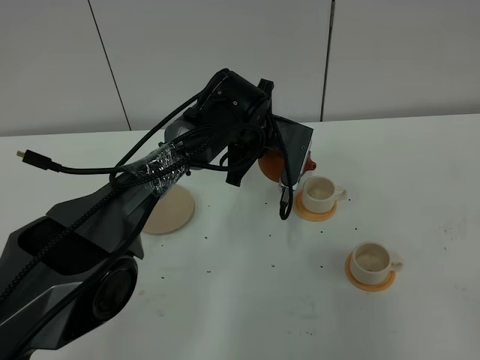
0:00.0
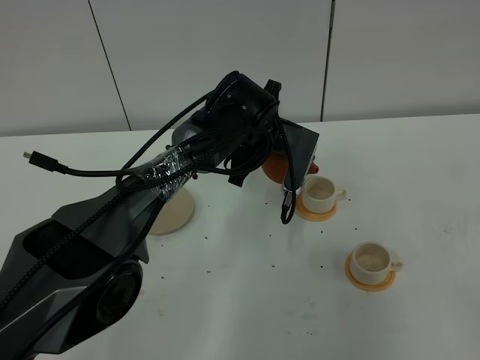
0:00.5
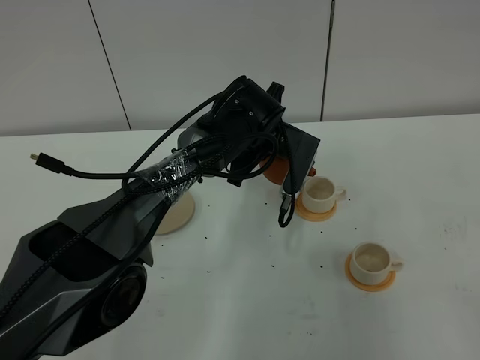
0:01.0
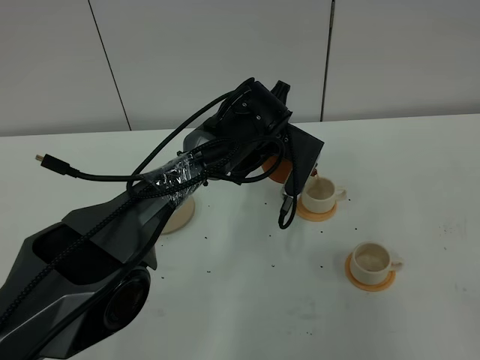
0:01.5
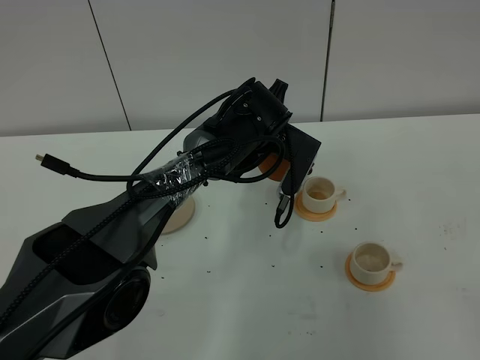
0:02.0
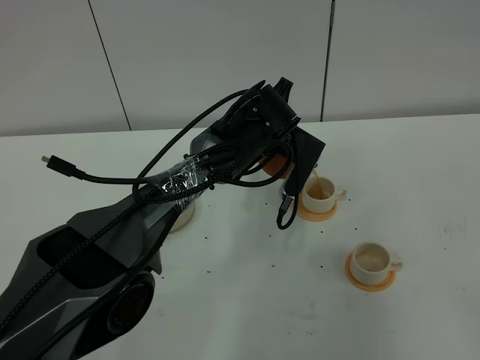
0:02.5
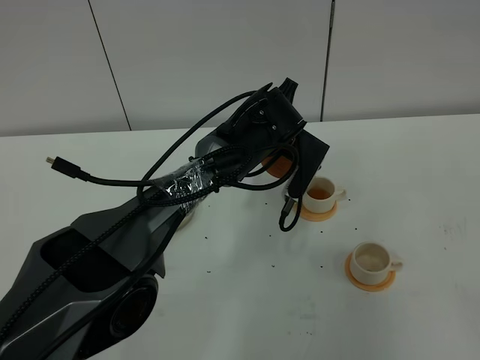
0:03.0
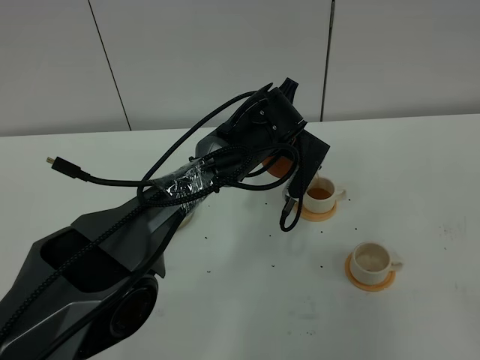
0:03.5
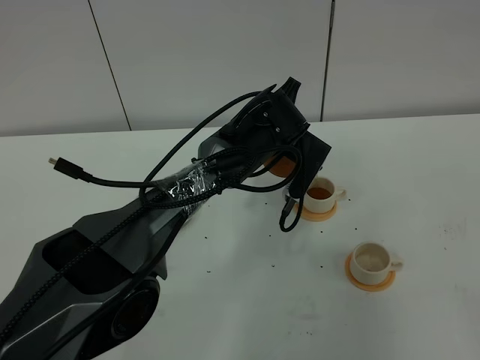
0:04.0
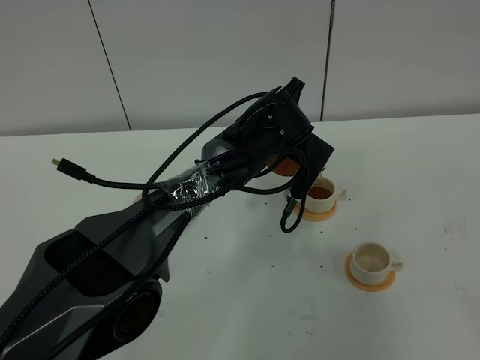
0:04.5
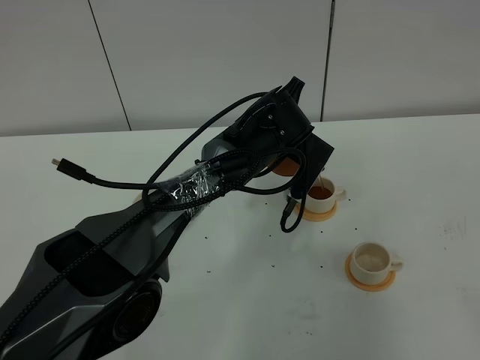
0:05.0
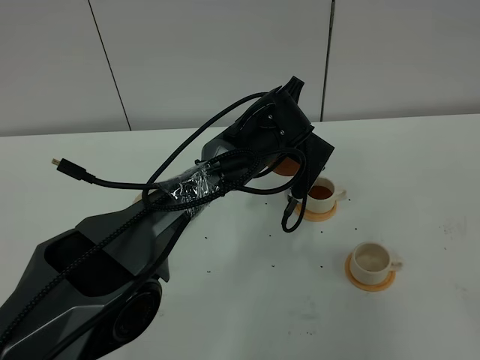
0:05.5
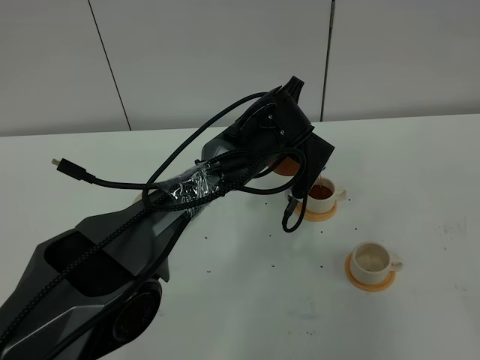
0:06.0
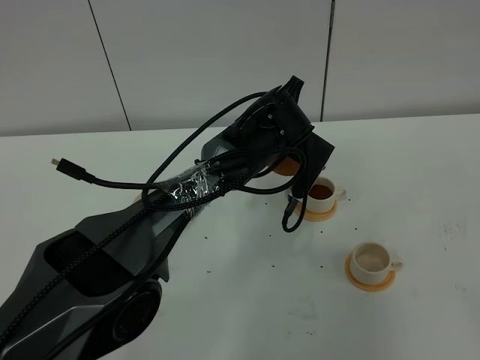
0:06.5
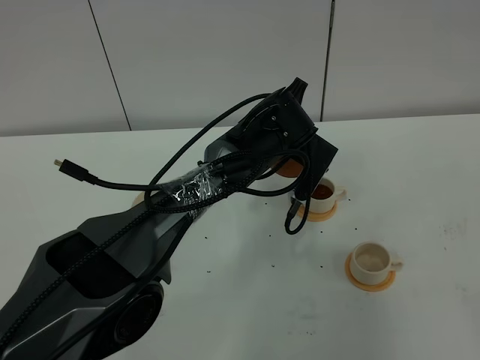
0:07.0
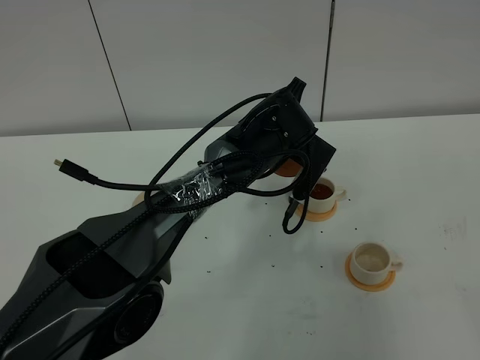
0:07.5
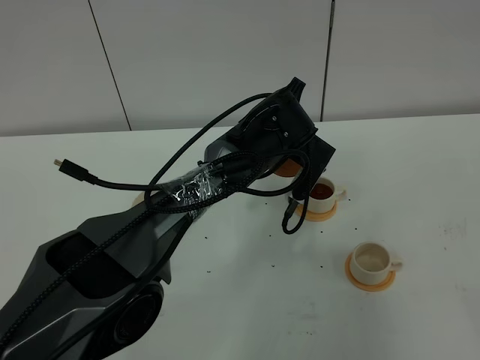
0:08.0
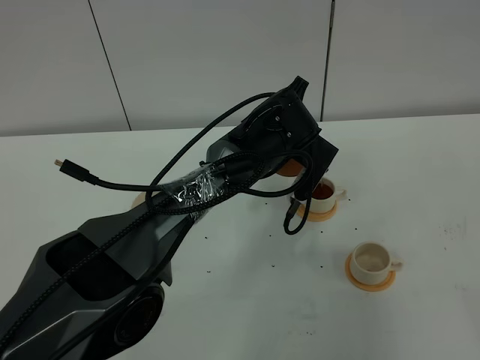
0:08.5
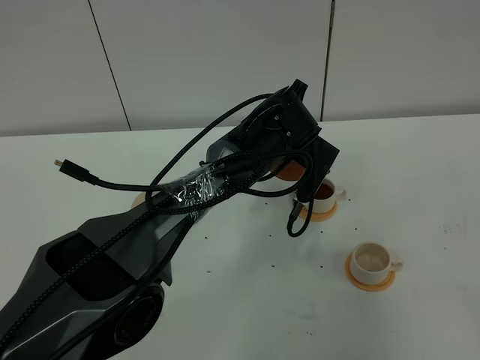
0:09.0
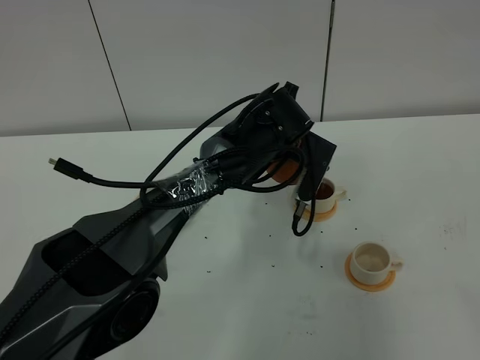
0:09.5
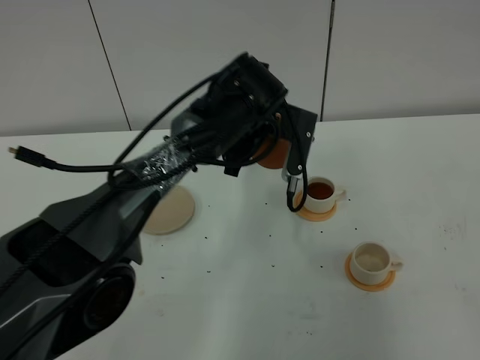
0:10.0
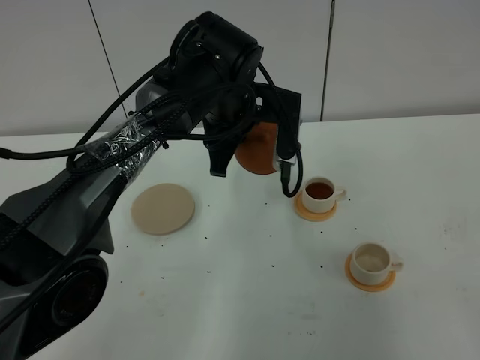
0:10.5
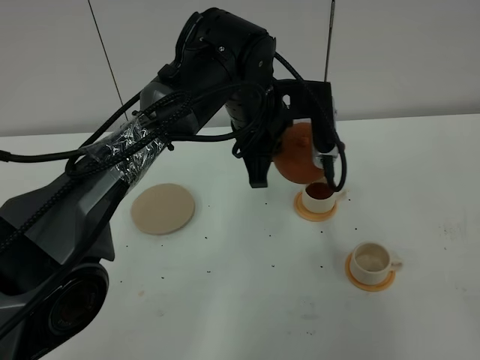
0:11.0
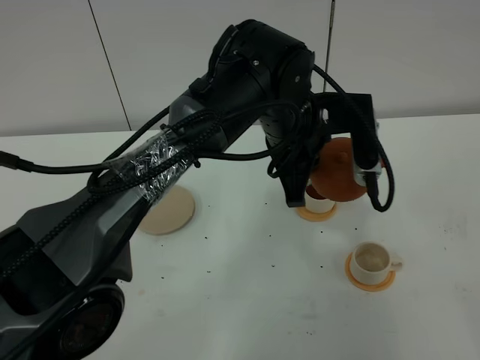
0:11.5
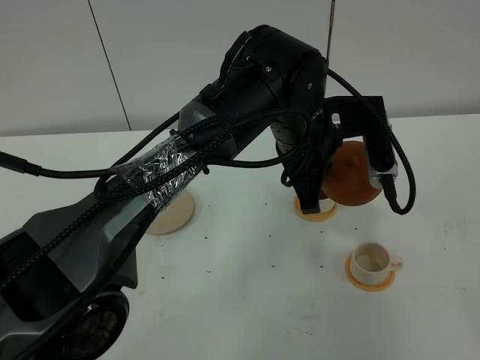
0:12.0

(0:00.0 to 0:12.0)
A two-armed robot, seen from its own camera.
Task of the whole recording: grasp the brown teapot and pour the tea into the two white teacups one by one, put the brown teapot back in its original place.
0:00.0 - 0:04.0: The grippers move only a little.
0:04.0 - 0:08.0: The two grippers keep their place.
0:08.0 - 0:10.0: The left gripper ends up about 5 cm from where it was.
0:10.0 - 0:12.0: The left gripper is displaced backward and to the right by roughly 10 cm.

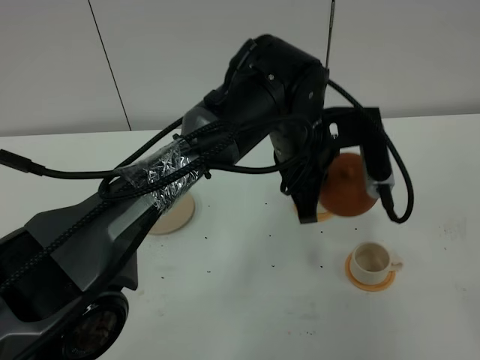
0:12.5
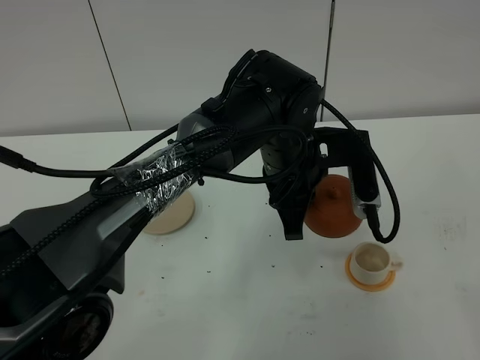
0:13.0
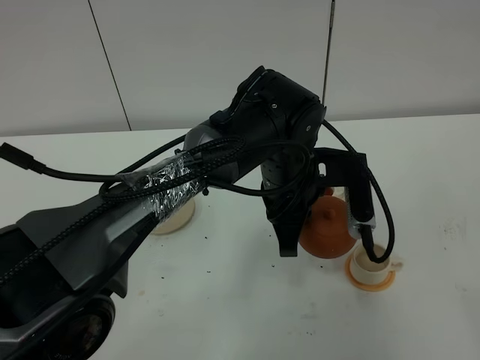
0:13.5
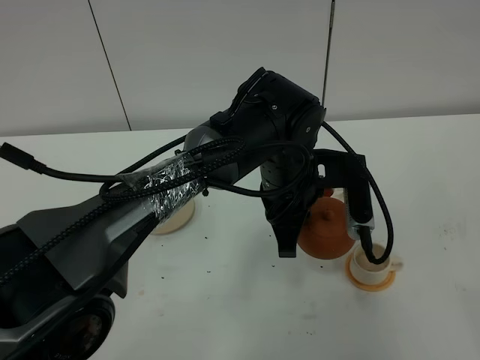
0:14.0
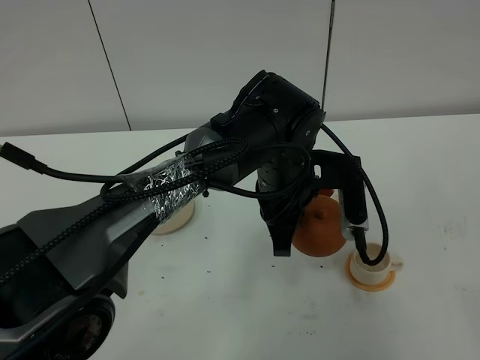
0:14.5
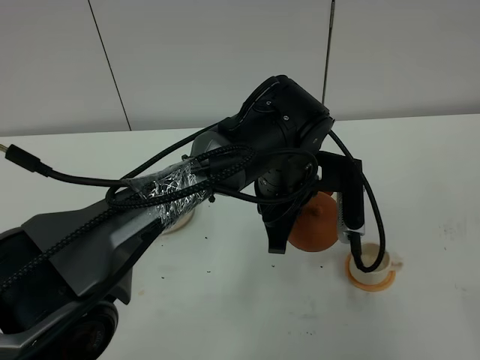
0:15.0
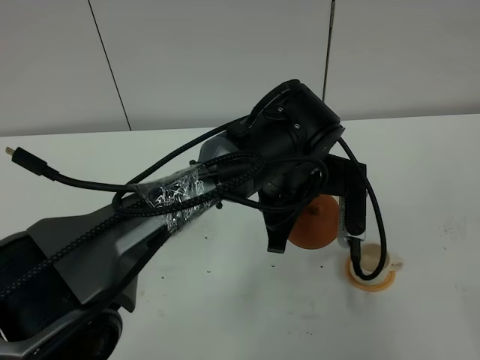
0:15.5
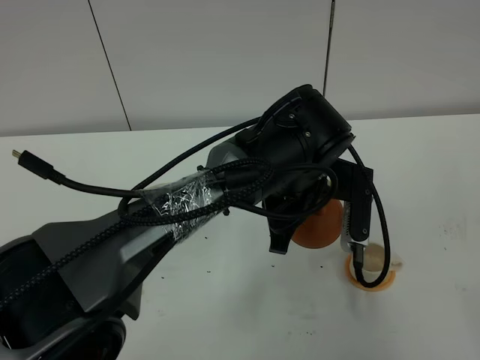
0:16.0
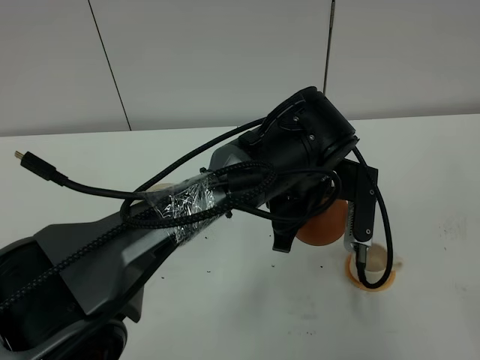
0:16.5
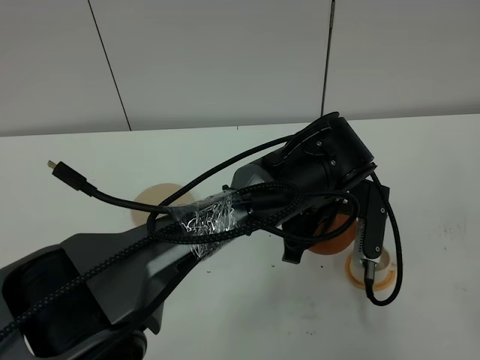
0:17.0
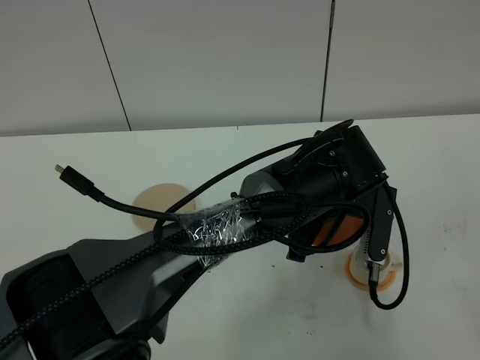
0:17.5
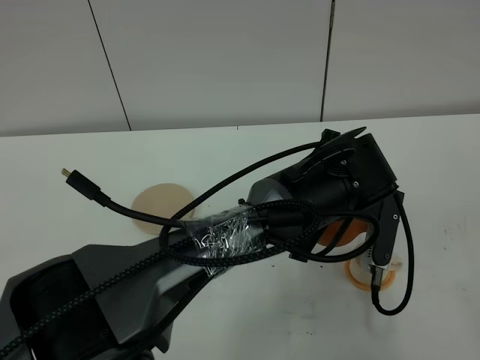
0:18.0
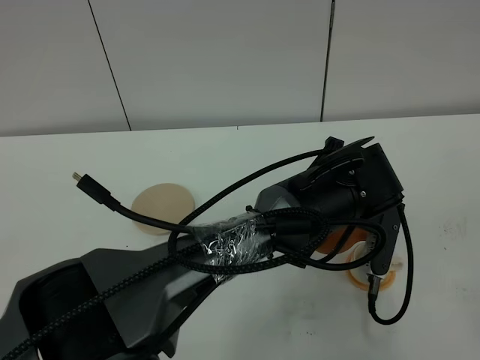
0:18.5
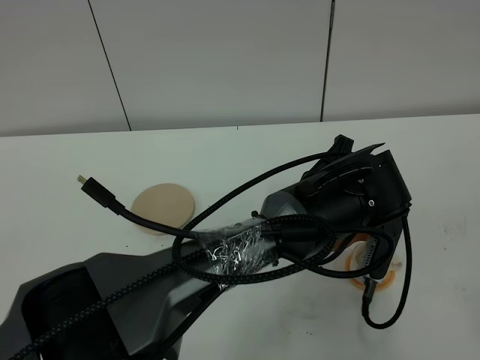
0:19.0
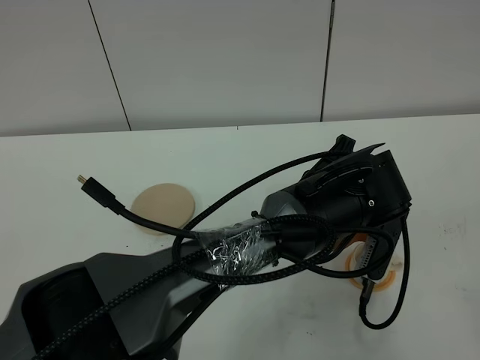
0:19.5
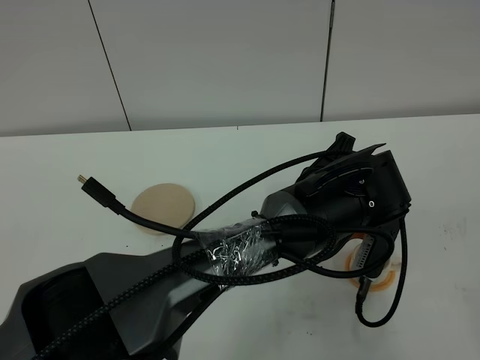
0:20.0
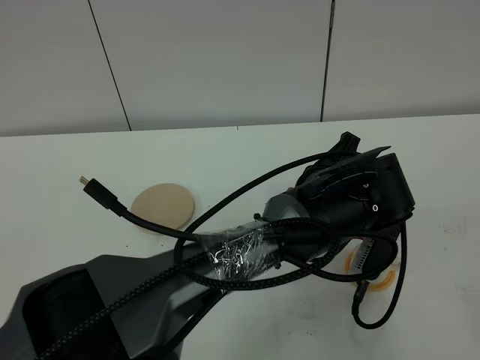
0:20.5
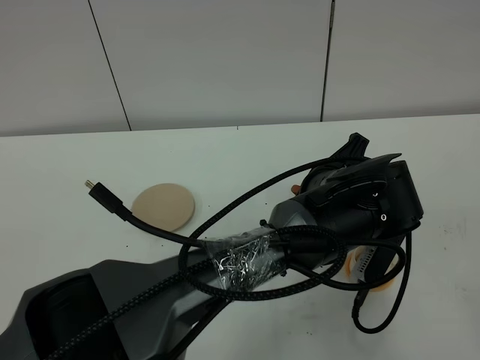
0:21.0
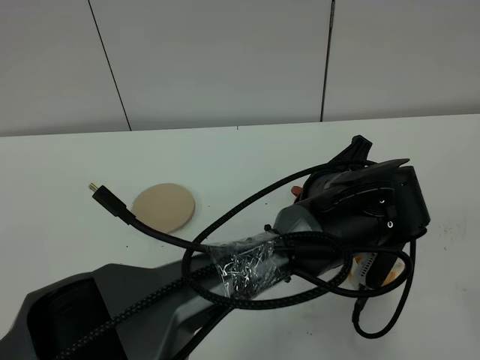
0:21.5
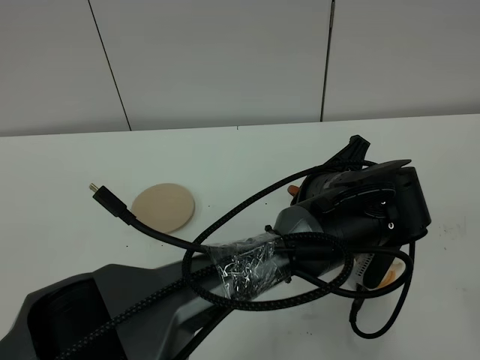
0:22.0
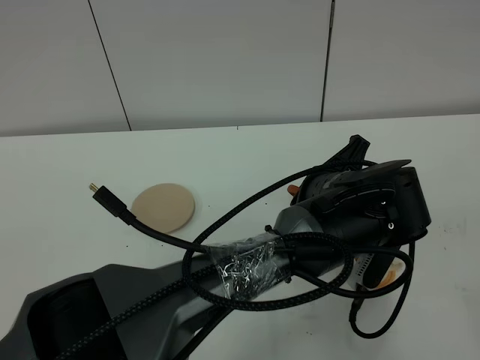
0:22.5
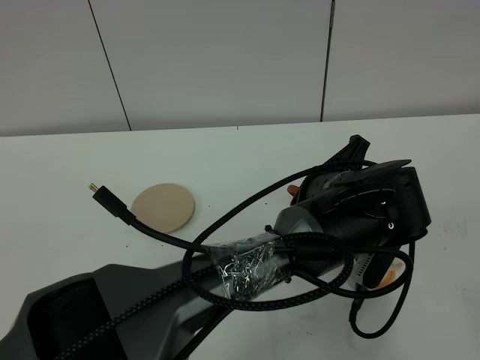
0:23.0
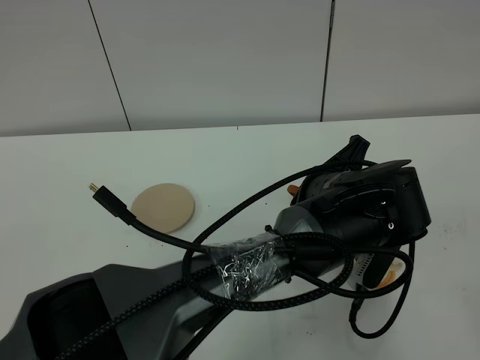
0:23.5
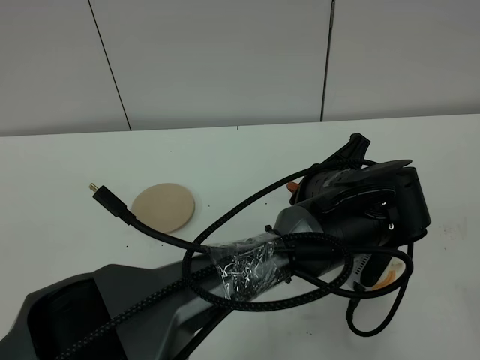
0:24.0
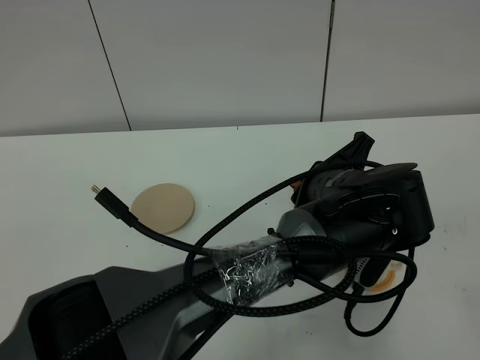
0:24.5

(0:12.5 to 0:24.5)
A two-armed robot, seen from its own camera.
Task of the whole recording: grasp the brown teapot and pour the tea into the two white teacups one by one, put the brown teapot back in its original place.
0:12.5 - 0:14.5: There are only small adjustments of the grippers.
0:14.5 - 0:16.5: The grippers move only a little.
0:18.5 - 0:22.5: The grippers move only a little.
0:22.5 - 0:24.5: Both grippers stay put.

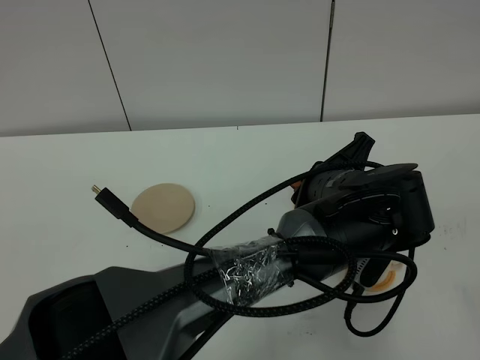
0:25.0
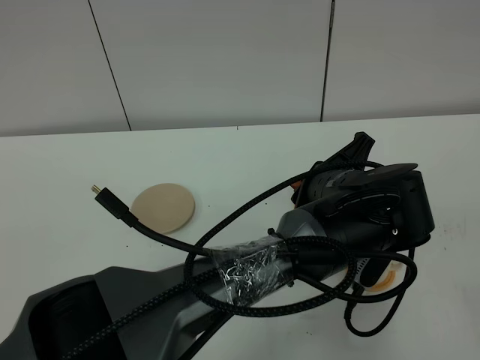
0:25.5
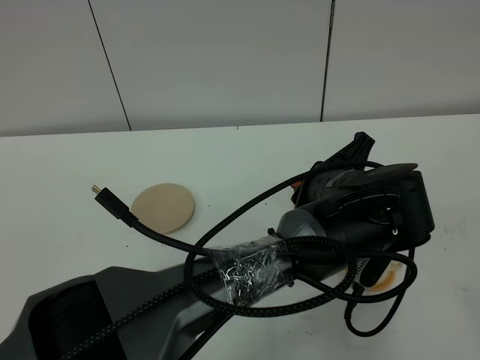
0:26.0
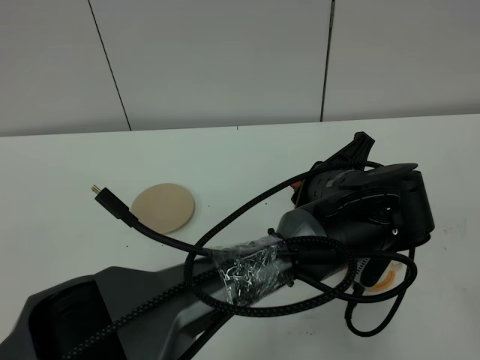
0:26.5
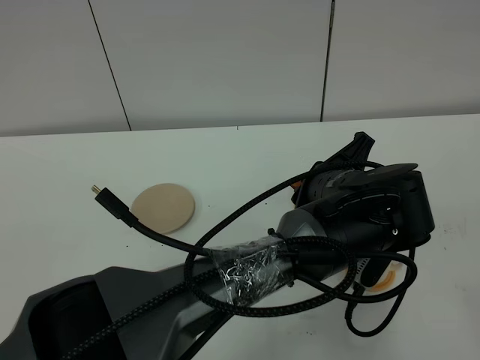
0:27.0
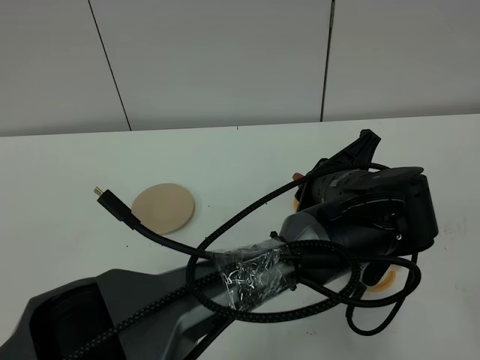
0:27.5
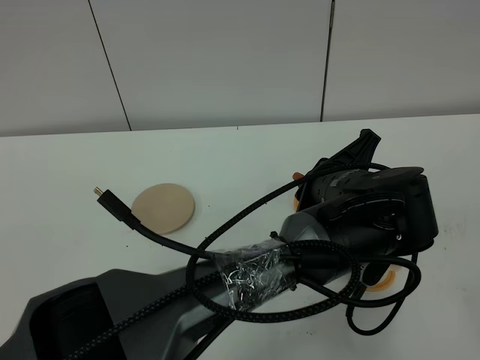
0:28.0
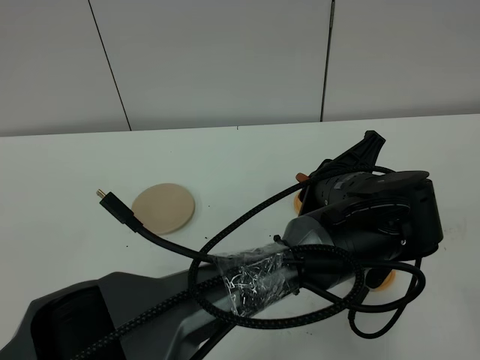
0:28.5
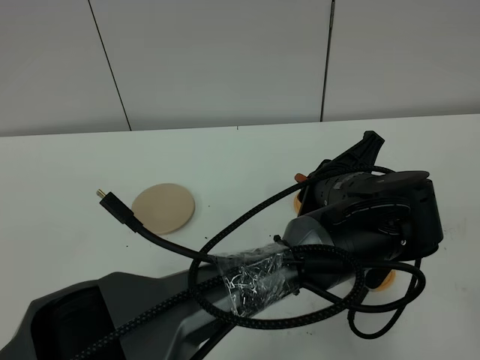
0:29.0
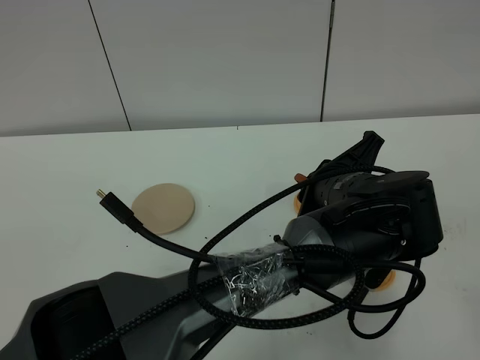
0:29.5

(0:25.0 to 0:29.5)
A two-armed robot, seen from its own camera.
Task of the whole recording: grasp the brown teapot and pour the tea into the two white teacups one by one, put the brown teapot back in its original place.
0:25.0 - 0:29.5: Neither gripper changes place.
